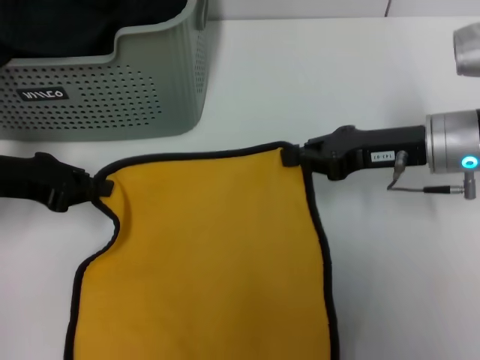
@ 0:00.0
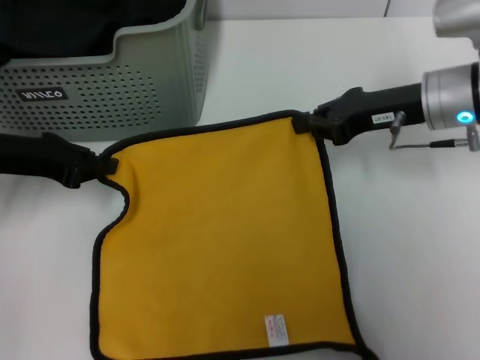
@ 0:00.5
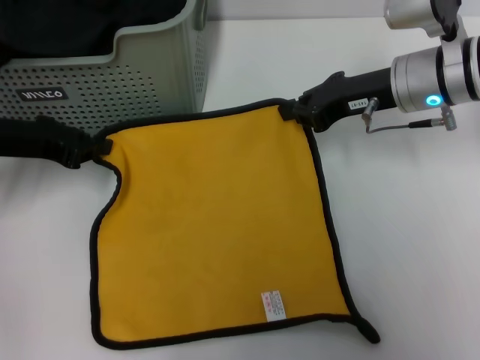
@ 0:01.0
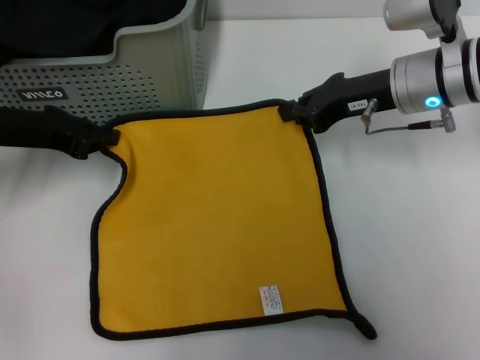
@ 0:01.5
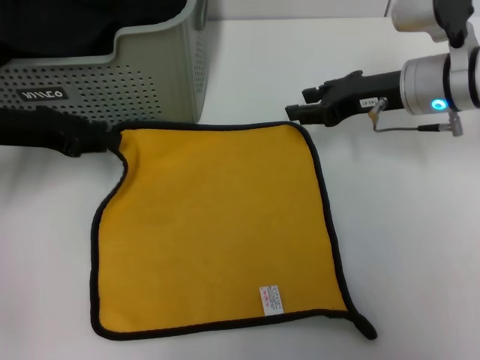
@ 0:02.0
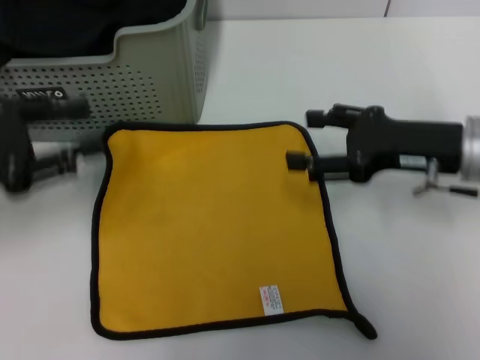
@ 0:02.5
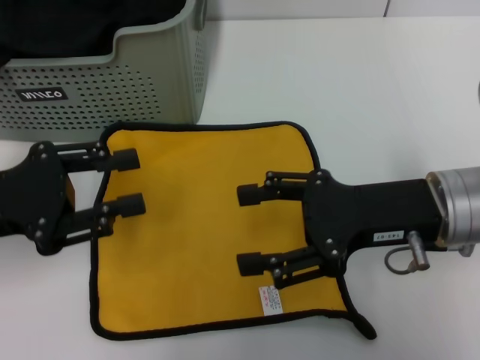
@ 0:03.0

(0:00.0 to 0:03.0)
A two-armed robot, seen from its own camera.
Task of the whole recording: pick up the towel from the storage box and lay it flat on the table.
Step, 0:00.0 - 0:02.0: Spread the towel flat with the right gripper.
0:00.0 - 0:01.5: The right gripper travels forward by approximately 5 cm.
0:01.5 - 0:03.0: Both grippers move backward, about 10 cm. The right gripper opens; the left gripper opens.
